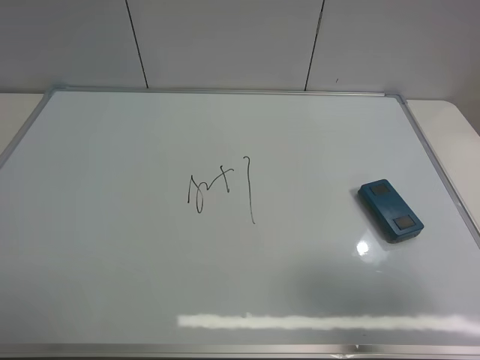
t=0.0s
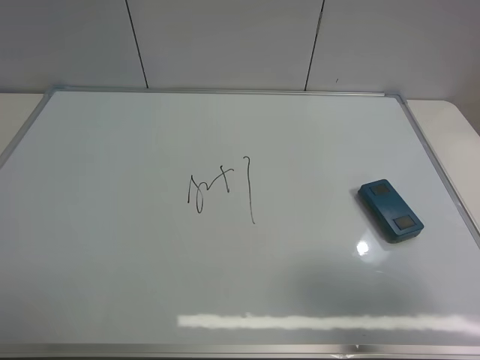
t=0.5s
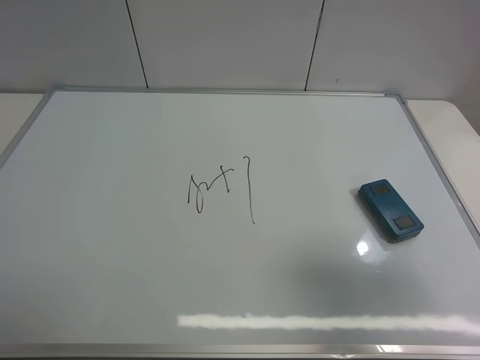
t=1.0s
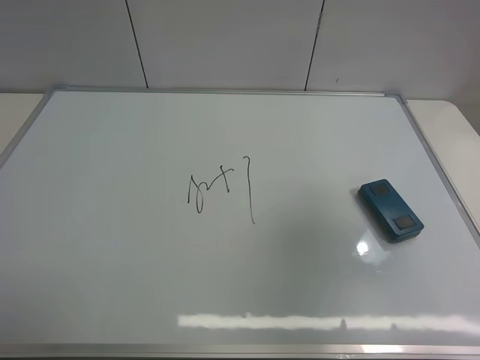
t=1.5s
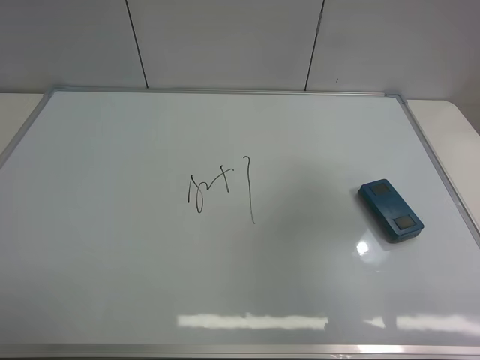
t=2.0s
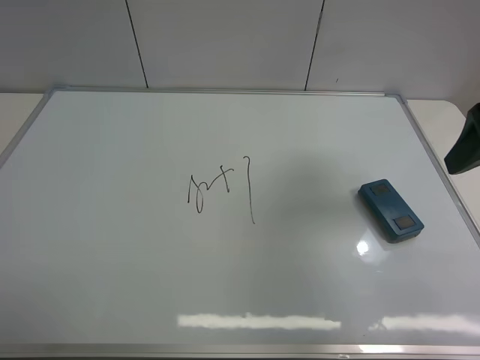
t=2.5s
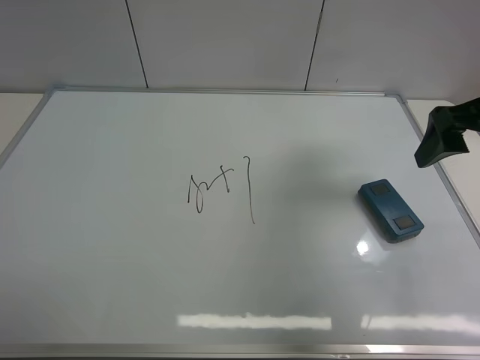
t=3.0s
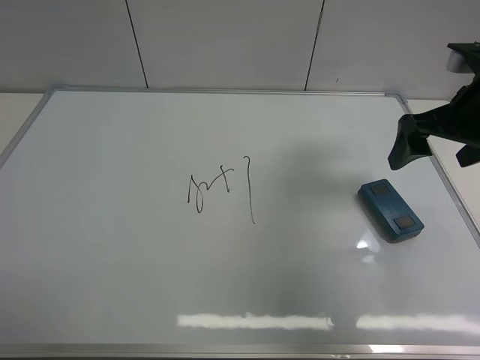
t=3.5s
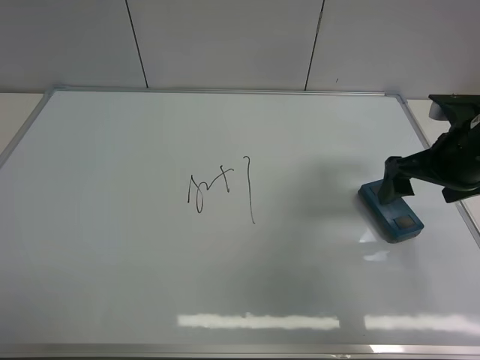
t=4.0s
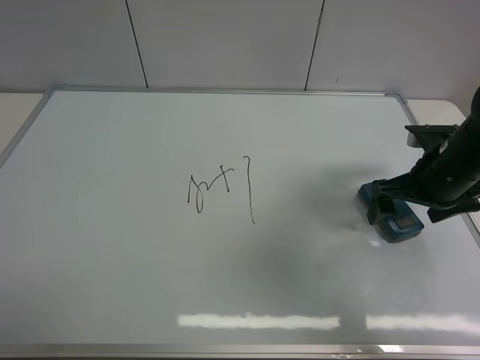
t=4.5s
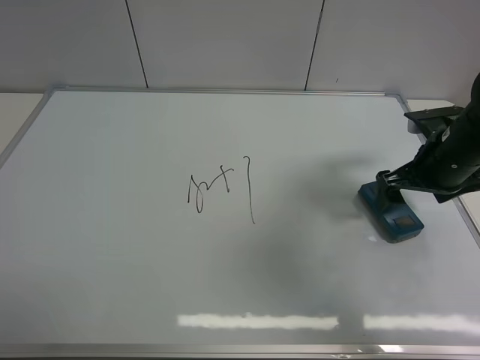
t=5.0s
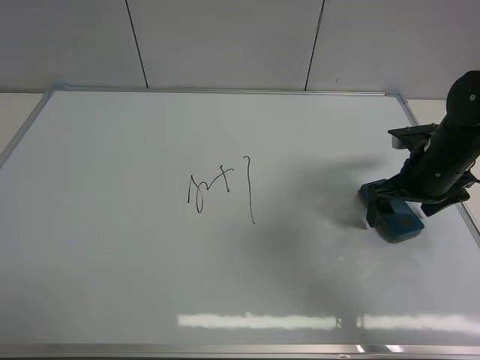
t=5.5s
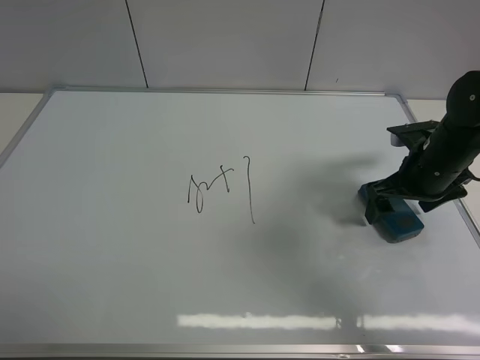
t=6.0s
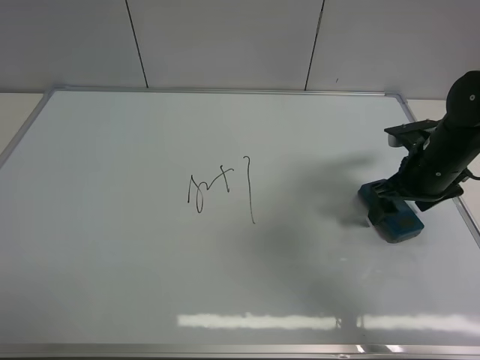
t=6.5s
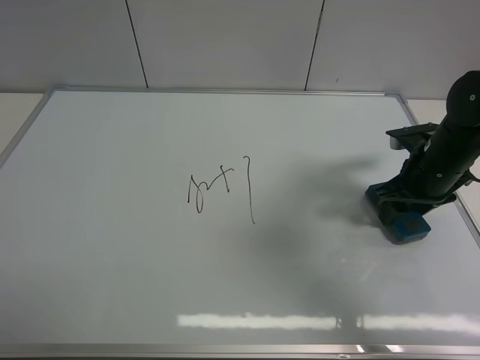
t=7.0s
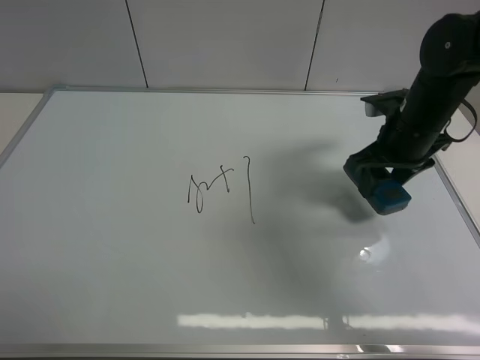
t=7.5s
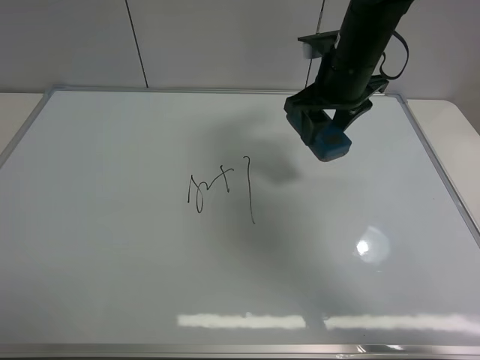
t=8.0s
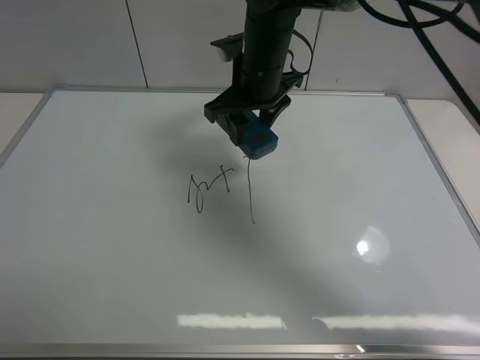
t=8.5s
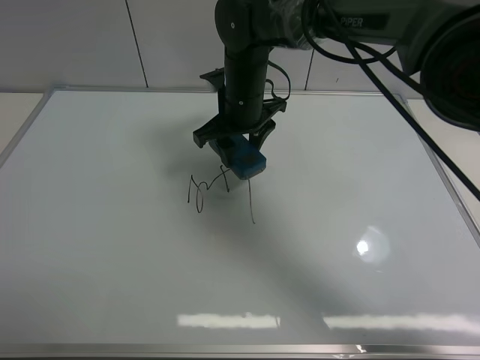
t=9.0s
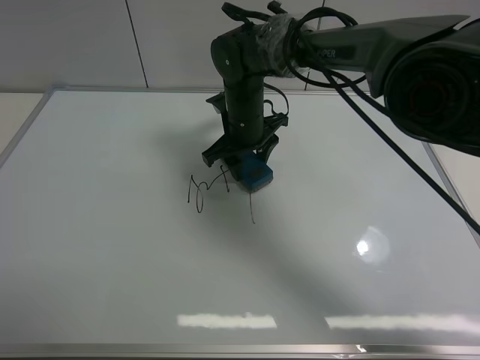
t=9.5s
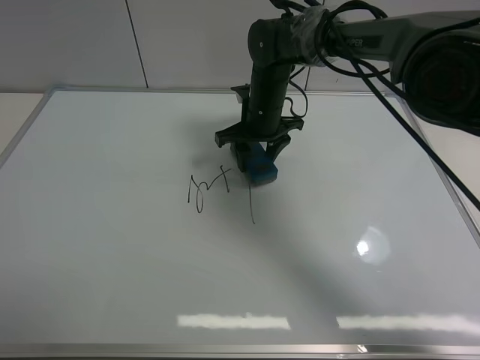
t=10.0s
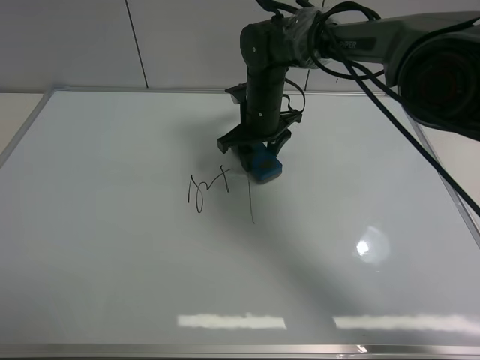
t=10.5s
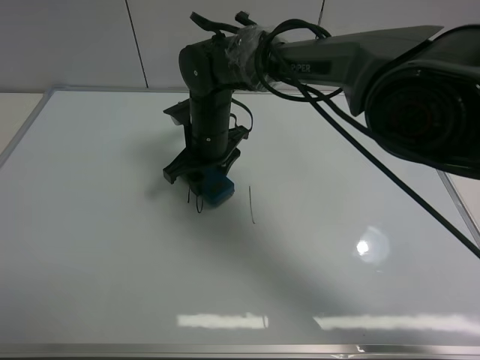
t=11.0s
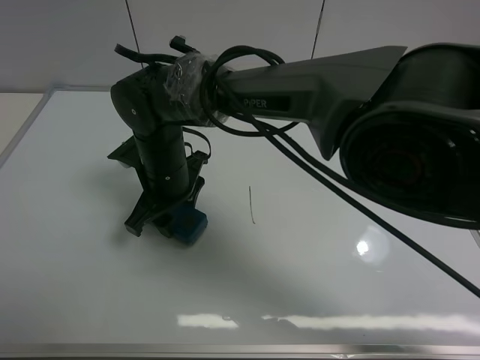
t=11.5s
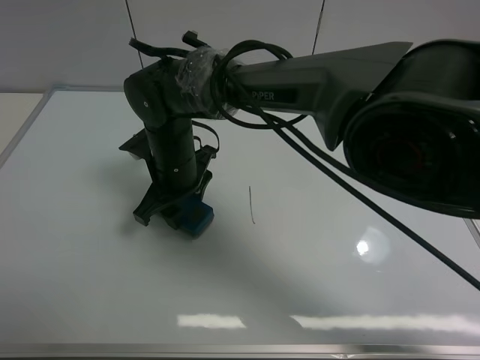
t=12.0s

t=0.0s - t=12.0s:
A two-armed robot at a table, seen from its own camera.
Task of the whole recording: use the right gripper to pick up the board eraser, wipe the notes on the whiteboard clean, and then put them back in place.
Step, t=0.0s - t=7.0s: Pick up the board eraser with right gripper.
t=0.0s - t=2.0s: The right gripper travels forward and upward by approximately 15 cm.
t=2.0s - t=4.0s: The right gripper goes about 20 cm downward and forward.
t=4.0s - t=6.0s: The right gripper shifts about 5 cm downward.
t=6.0s - t=8.0s: The right gripper travels to the left, upward and forward by some 20 cm, and closes.
t=8.0s - t=10.0s: The right gripper moves downward, to the left and forward, some 15 cm.
t=10.0s - t=12.0s: The right gripper moves to the left and backward, some 20 cm.

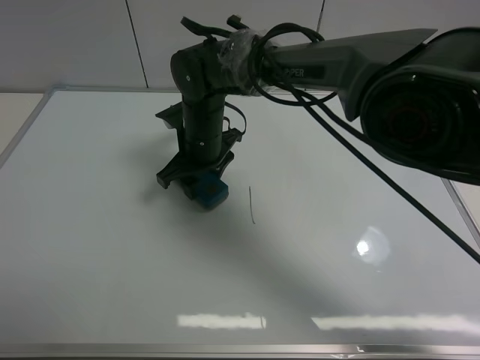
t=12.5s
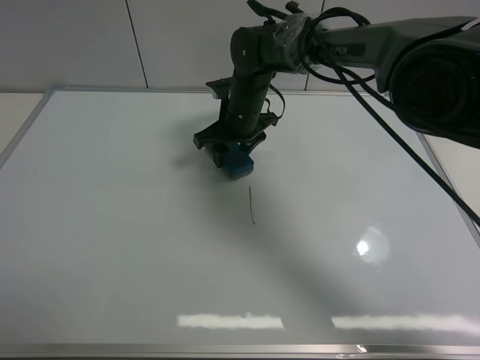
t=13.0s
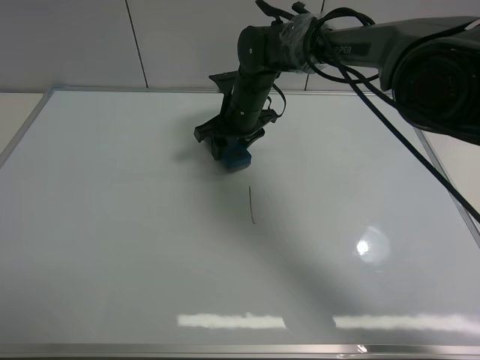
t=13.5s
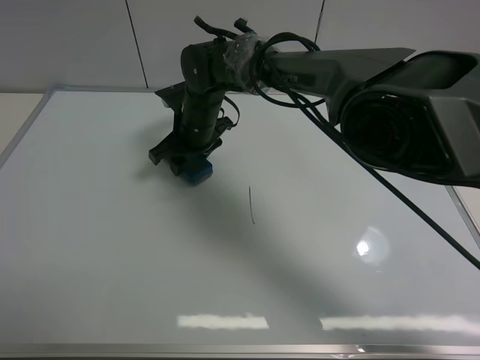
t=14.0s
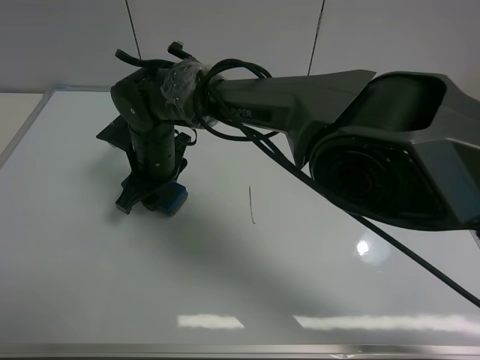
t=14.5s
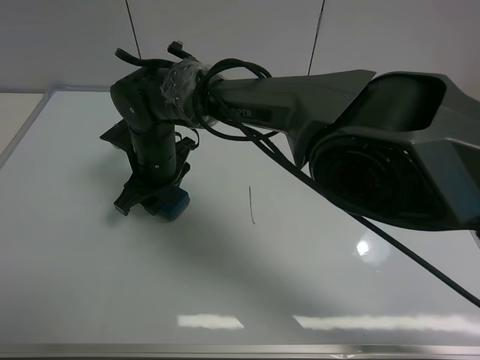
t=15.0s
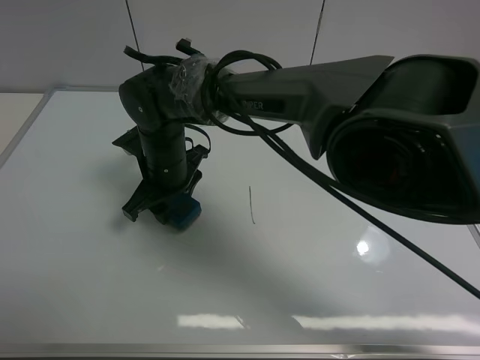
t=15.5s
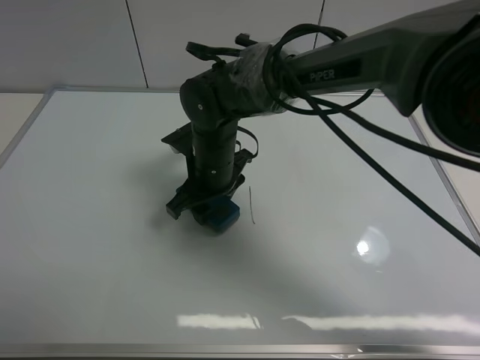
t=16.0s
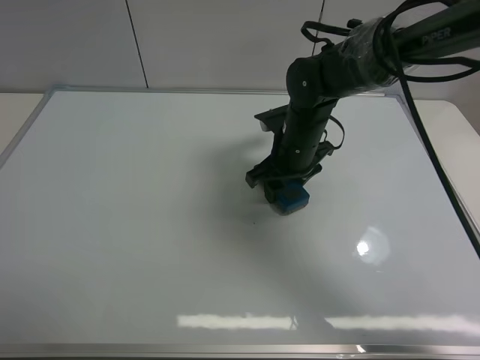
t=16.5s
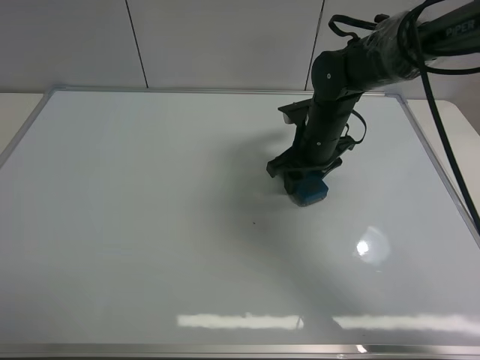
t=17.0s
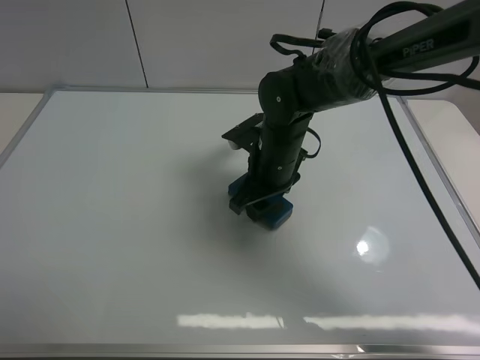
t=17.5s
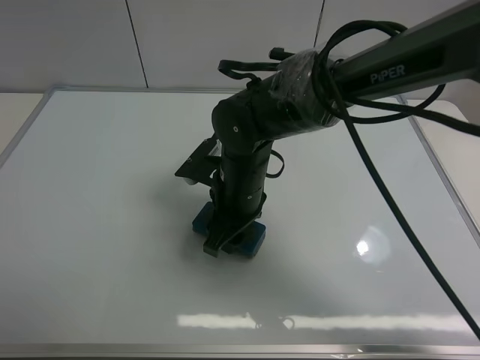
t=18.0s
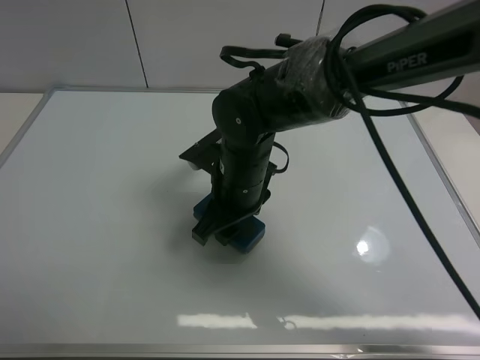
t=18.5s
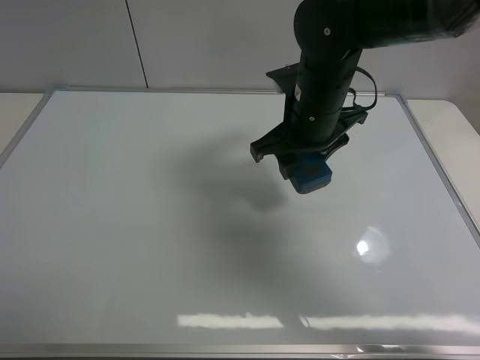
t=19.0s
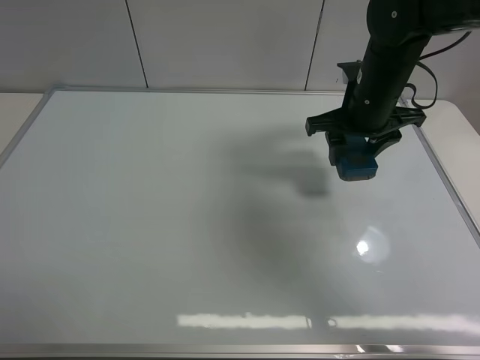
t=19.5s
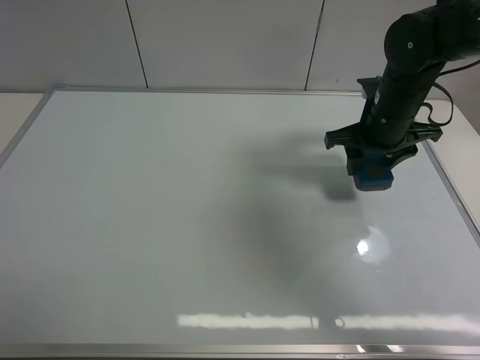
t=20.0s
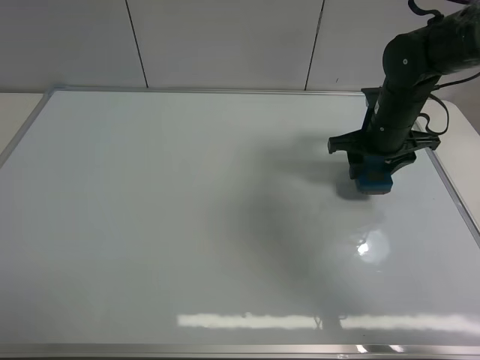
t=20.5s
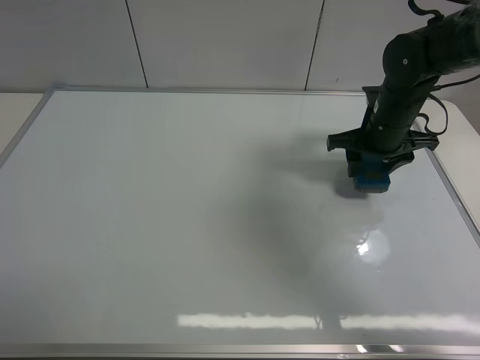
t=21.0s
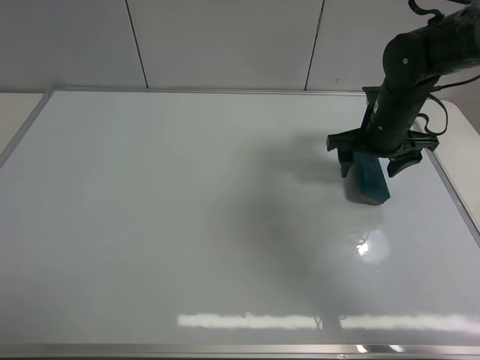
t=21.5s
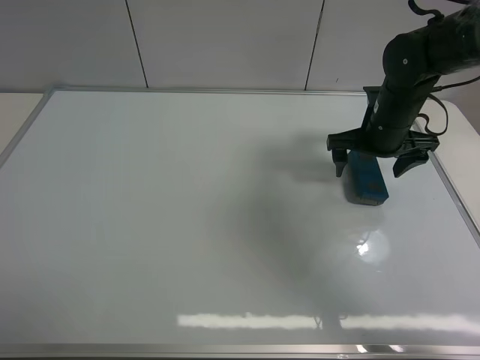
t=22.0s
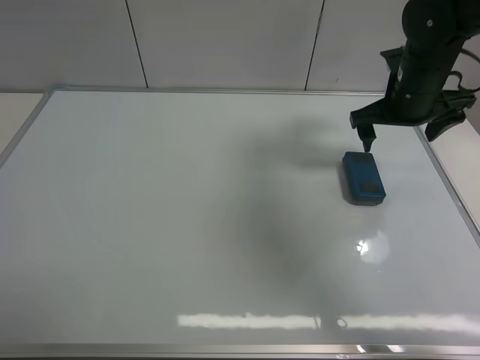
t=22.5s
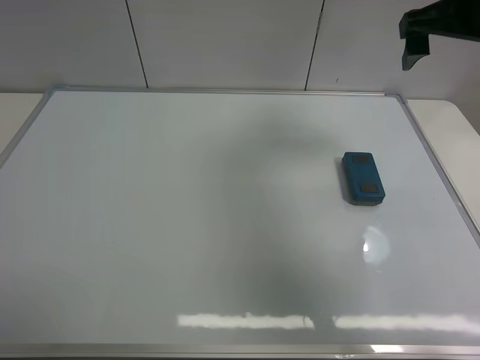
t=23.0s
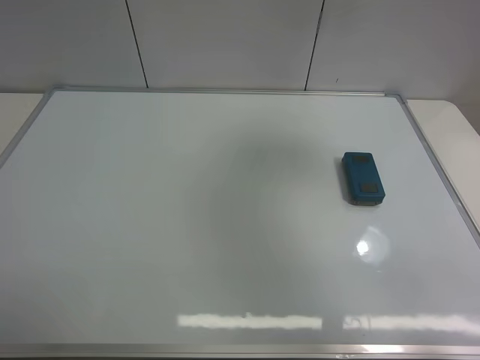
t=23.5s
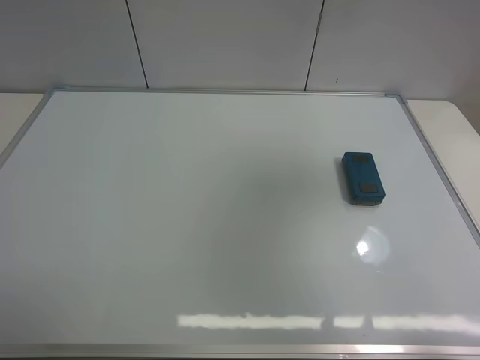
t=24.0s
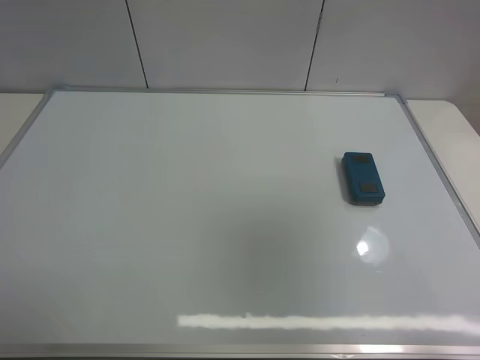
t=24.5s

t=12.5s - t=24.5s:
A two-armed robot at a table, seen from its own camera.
Task of the whole recording: use the right gripper to pick up the board eraser, wipe the notes on the whiteboard clean, and then put them back in place.
Step, t=12.5s - t=18.0s: Wipe off the writing on the board with right gripper.
Step, t=18.5s - t=21.5s: Move the board eraser to the right of the whiteboard with right gripper.
t=12.5s - t=14.5s: The right gripper shifts some 5 cm to the left.
t=14.5s - t=16.5s: The right gripper shifts about 20 cm to the right.
t=16.5s - t=18.5s: The right gripper shifts some 15 cm to the left and backward.
t=18.5s - t=20.5s: The right gripper goes about 25 cm to the right and forward.
t=20.5s - t=22.5s: The right gripper goes about 5 cm upward, and opens.
t=22.5s - t=24.5s: The right gripper is displaced backward and upward by some 40 cm.

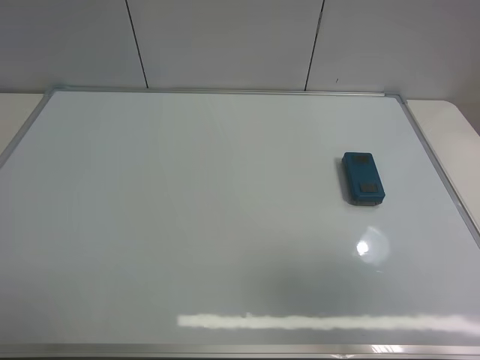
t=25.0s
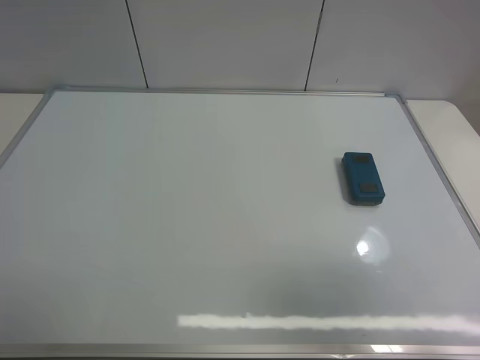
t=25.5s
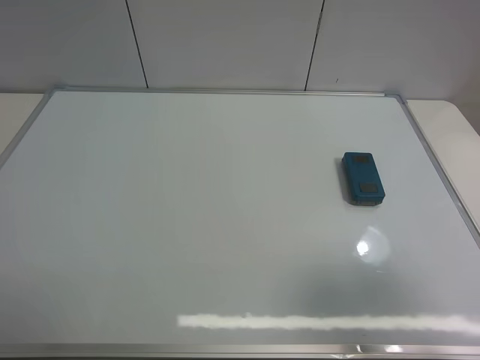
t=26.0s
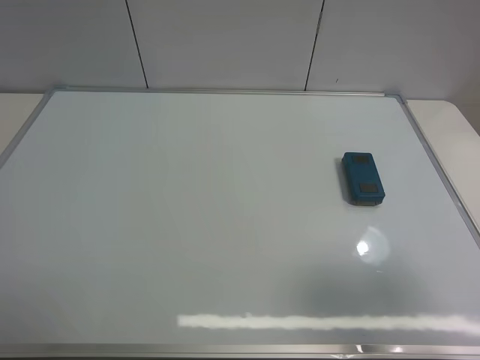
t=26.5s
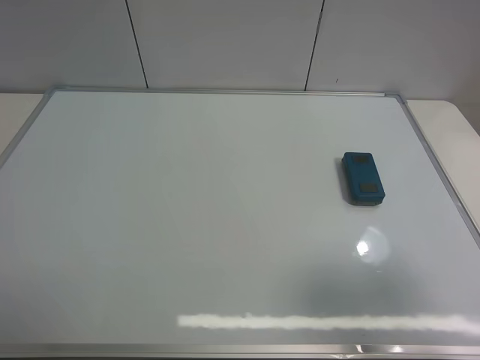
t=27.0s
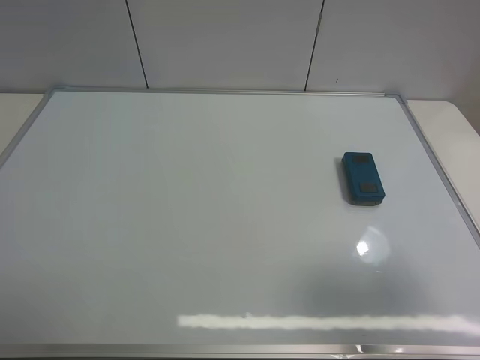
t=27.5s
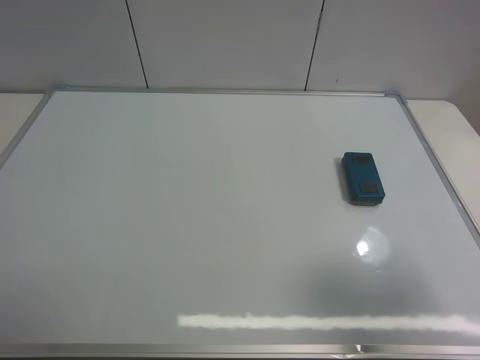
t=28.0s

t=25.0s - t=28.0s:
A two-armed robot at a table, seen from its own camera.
Task of the whole recording: use the right gripper to pick up the board eraser, wipe the notes on the whiteboard clean, and then put them back in place.
t=25.0s - t=26.5s: The right gripper shifts roughly 5 cm downward.
